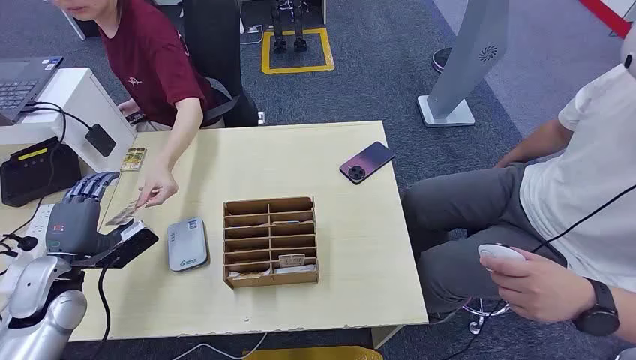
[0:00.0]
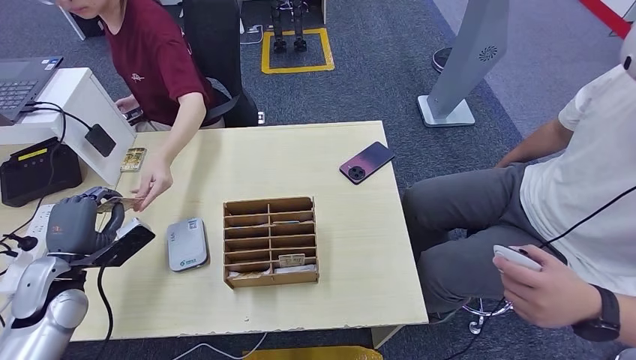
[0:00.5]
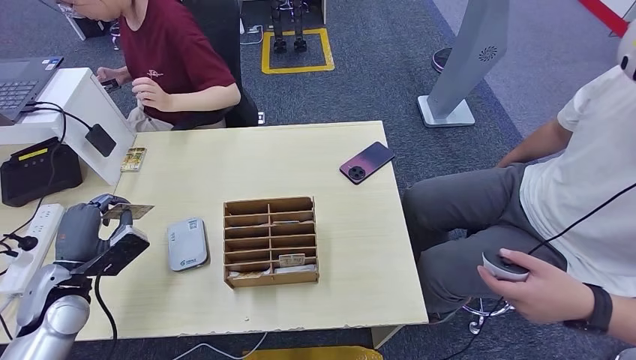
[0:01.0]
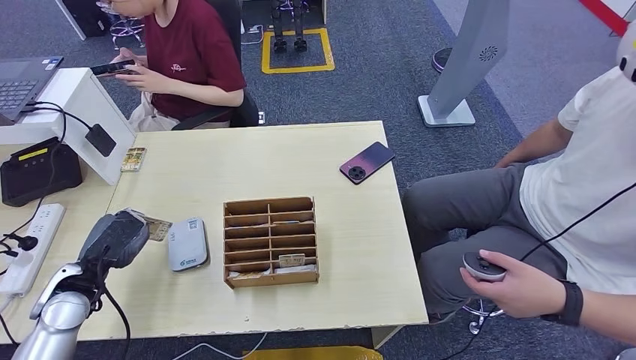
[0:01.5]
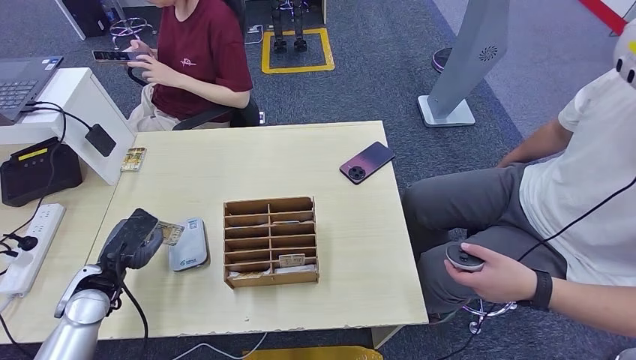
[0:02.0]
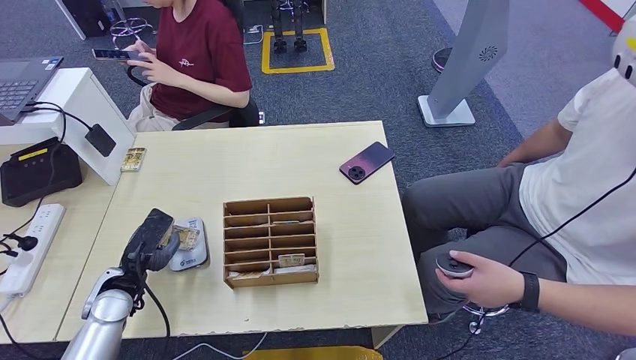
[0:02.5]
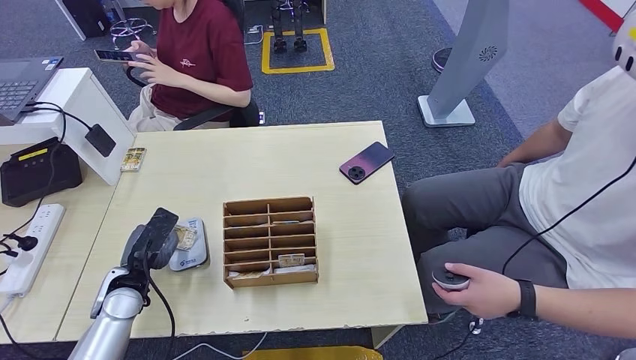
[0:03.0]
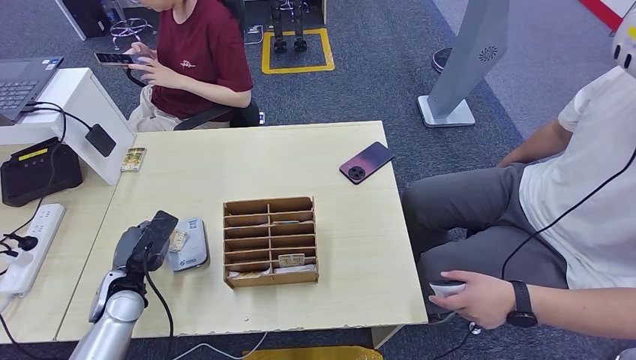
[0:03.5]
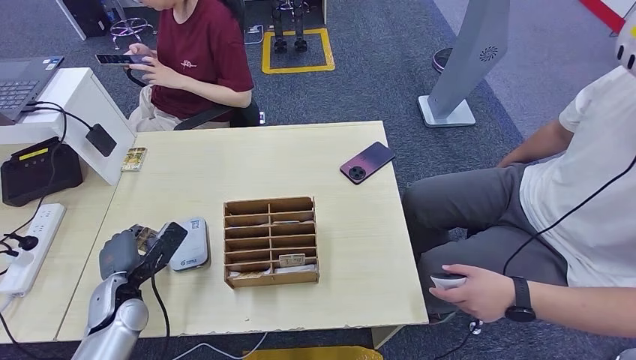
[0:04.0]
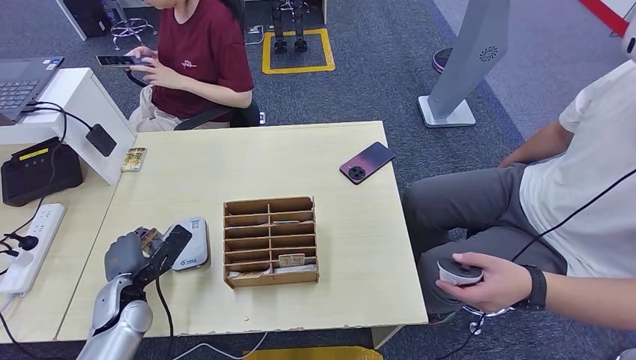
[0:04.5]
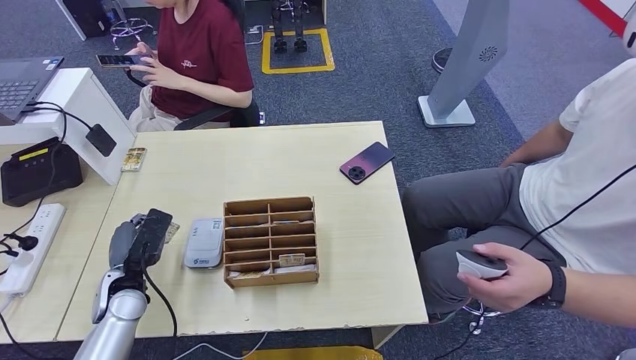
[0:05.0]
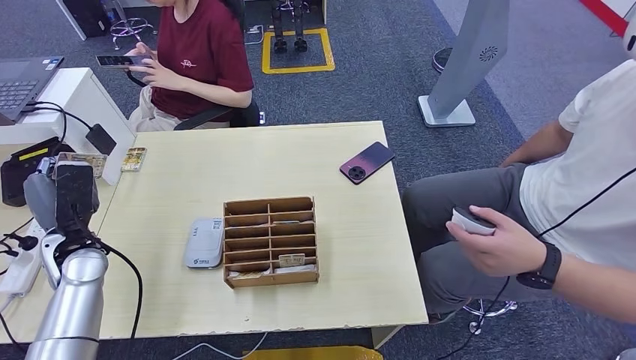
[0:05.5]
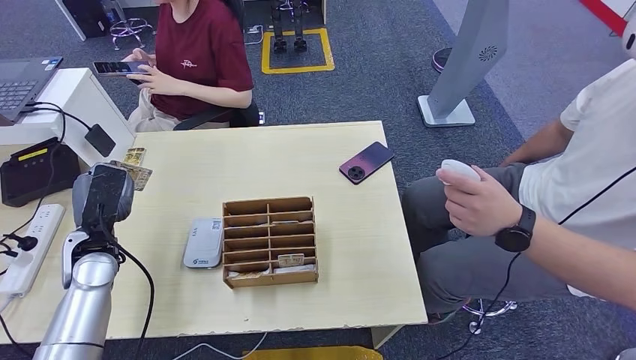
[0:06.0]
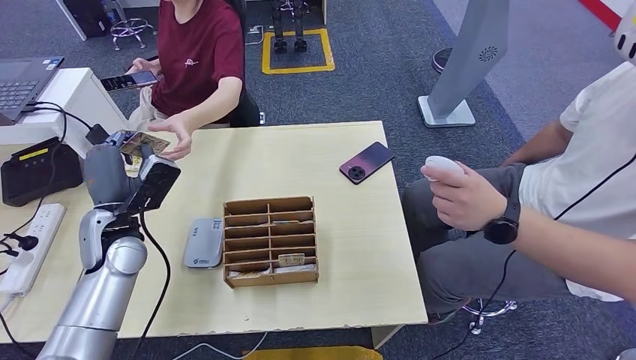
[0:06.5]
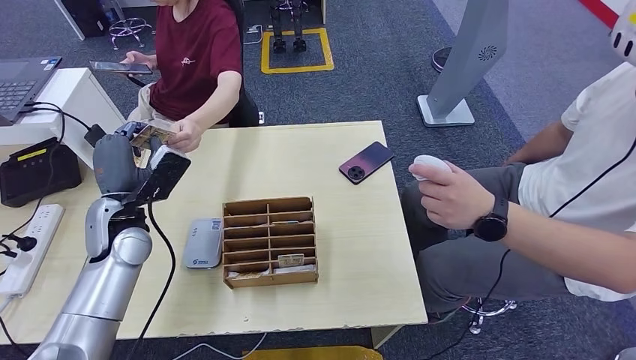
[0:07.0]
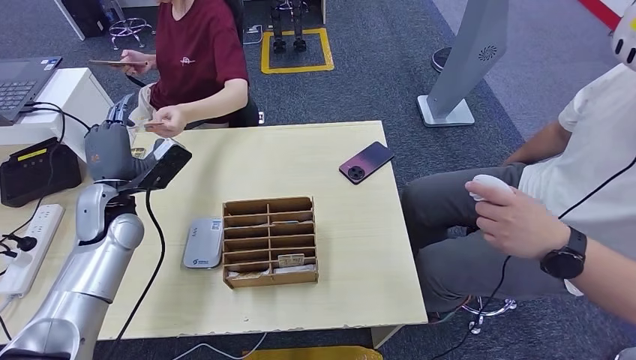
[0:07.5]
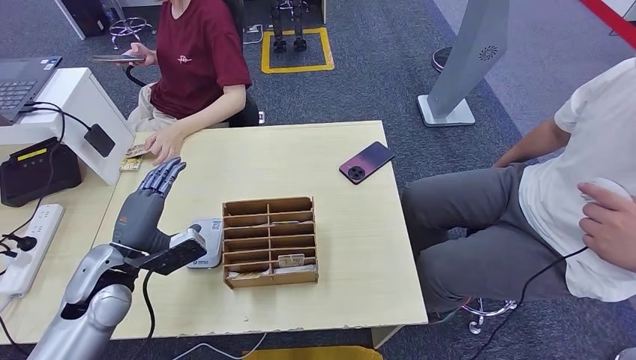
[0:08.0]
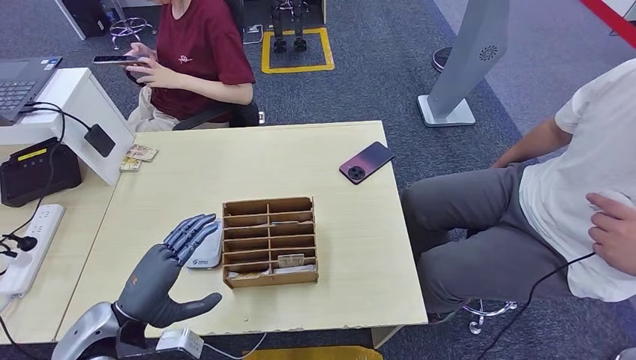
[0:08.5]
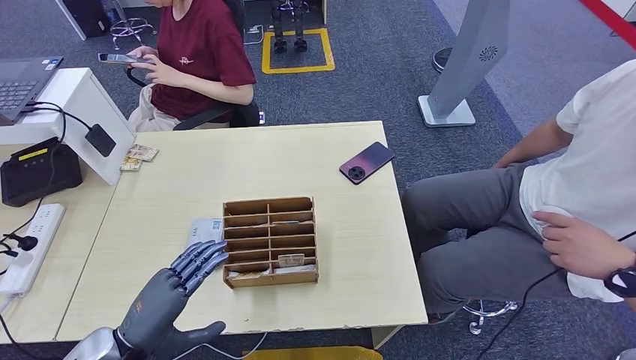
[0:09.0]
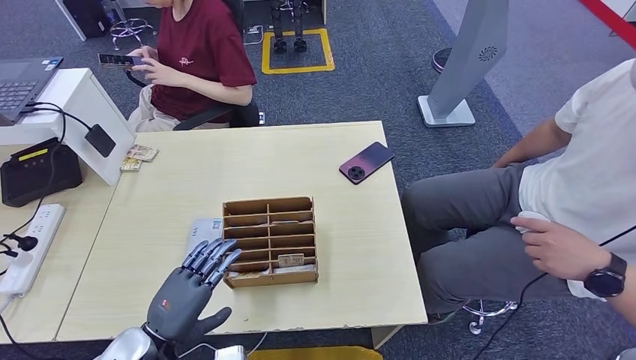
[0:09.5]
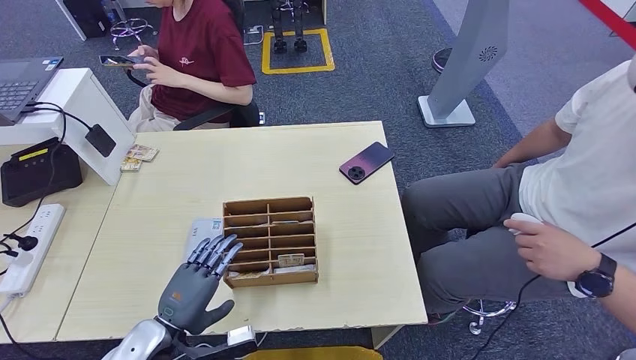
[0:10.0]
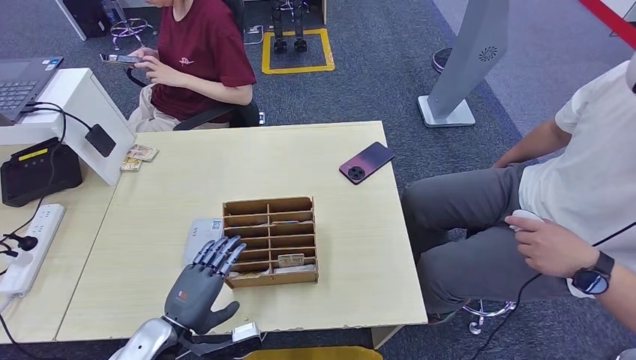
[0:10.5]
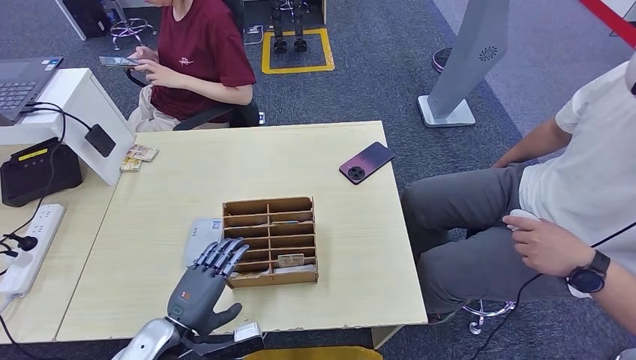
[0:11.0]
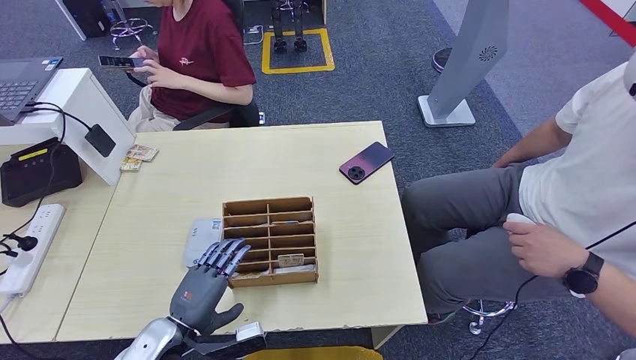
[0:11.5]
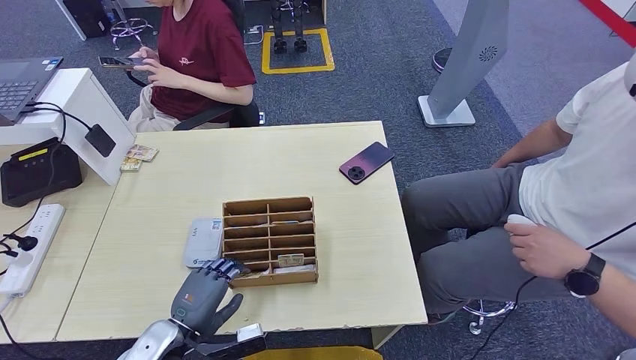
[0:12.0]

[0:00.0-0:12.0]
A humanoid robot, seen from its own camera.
Step, 0:00.0 to 0:00.5: Take the ID card from the person's hand.
Step, 0:02.0 to 0:03.0: Place the ID card on the card reader.
Step, 0:06.0 to 0:07.0: Hand the ID card to the person.
0:02.0 to 0:04.0: The left hand changes place by approximately 5 cm.
0:04.0 to 0:06.0: The left hand heads upward and forward, covering roughly 10 cm.
0:06.0 to 0:08.0: The left hand moves approximately 5 cm forward and comes back.
0:08.0 to 0:10.0: The left hand travels backward, downward and to the right by roughly 15 cm.
0:10.0 to 0:12.0: The hands stay close to where they were, moving slightly.

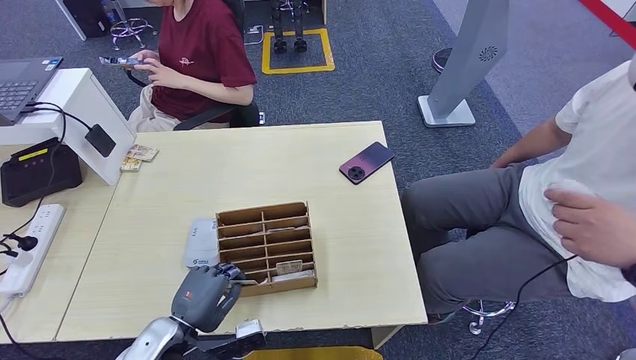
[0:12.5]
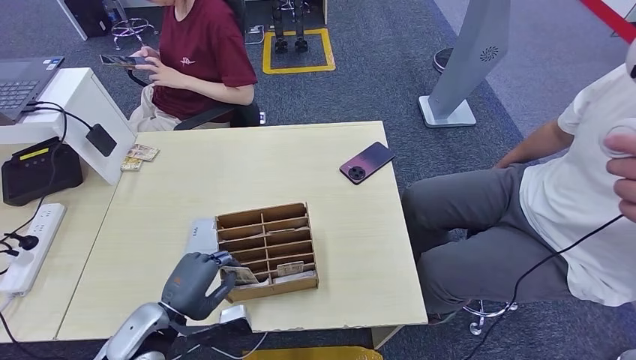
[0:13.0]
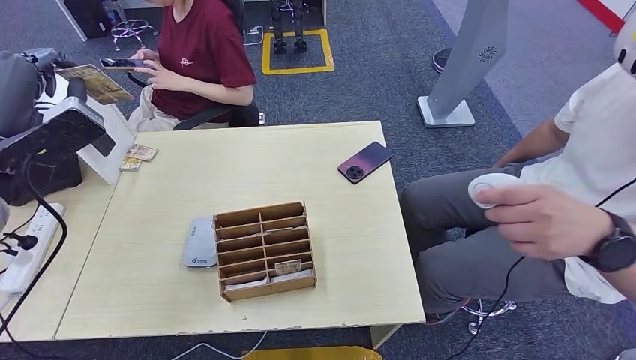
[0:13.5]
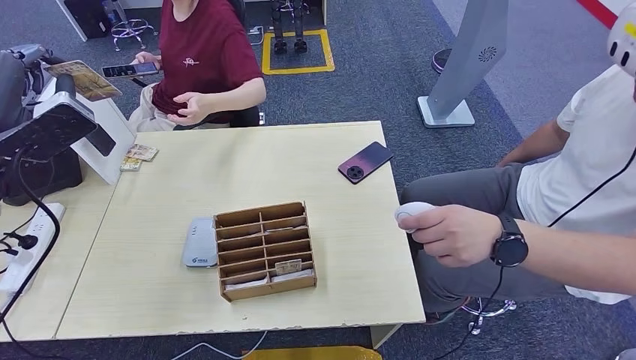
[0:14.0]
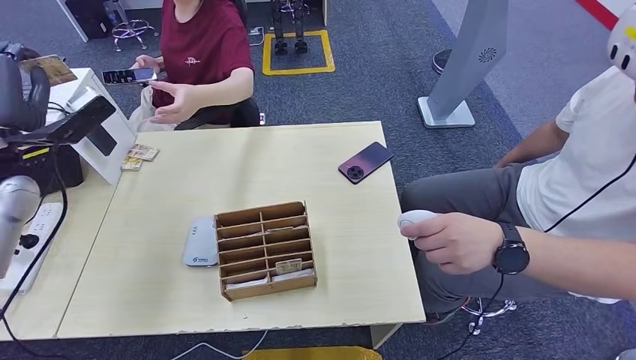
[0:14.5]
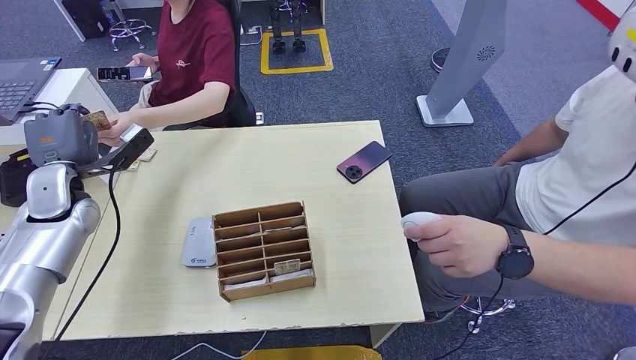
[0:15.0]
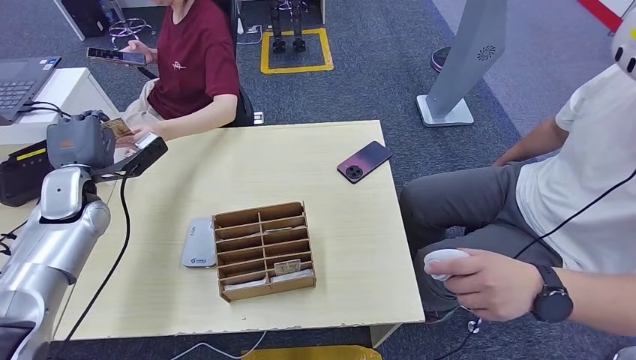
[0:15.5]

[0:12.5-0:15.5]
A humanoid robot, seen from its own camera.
Step, 0:14.0 to 0:15.5: Hand the room key to the person.
0:12.5 to 0:14.0: The left hand heads upward, to the left and forward, covering some 40 cm.
